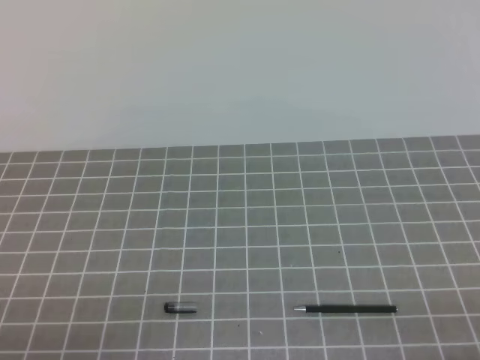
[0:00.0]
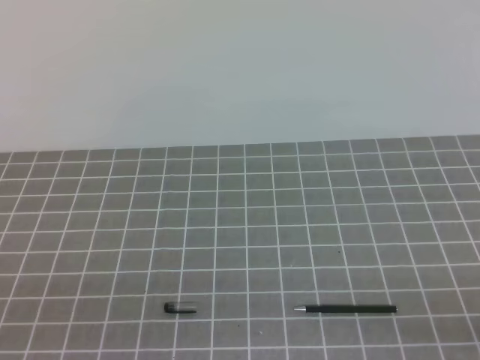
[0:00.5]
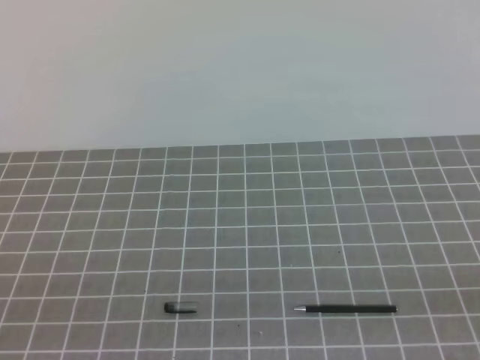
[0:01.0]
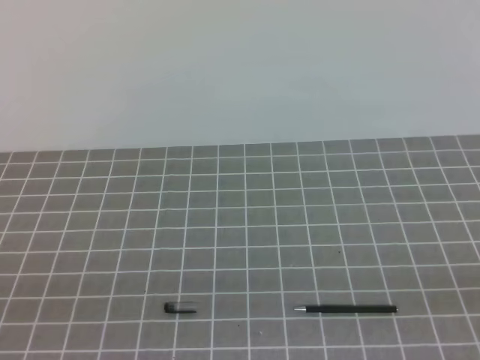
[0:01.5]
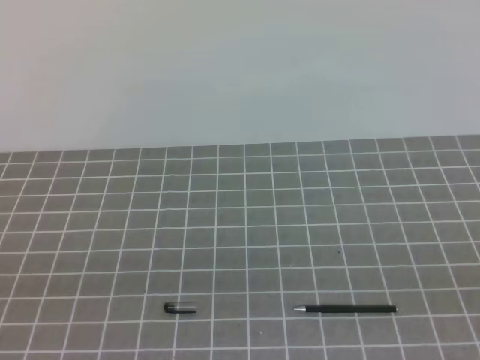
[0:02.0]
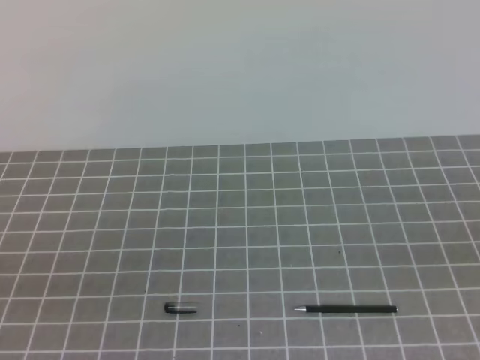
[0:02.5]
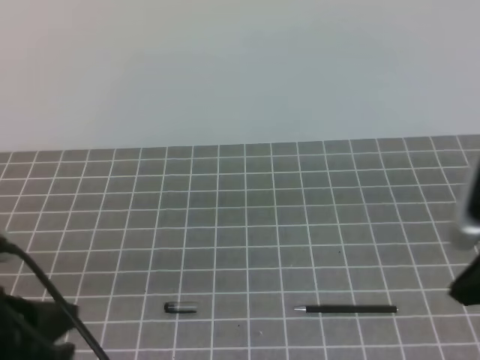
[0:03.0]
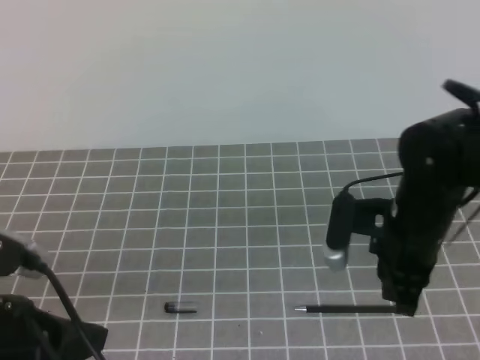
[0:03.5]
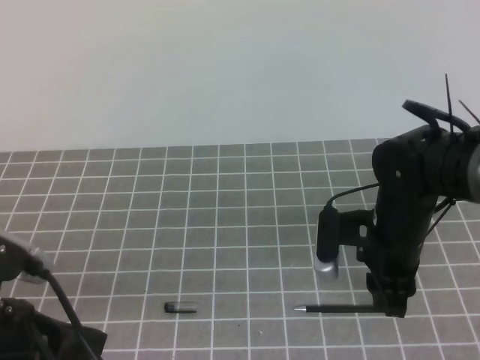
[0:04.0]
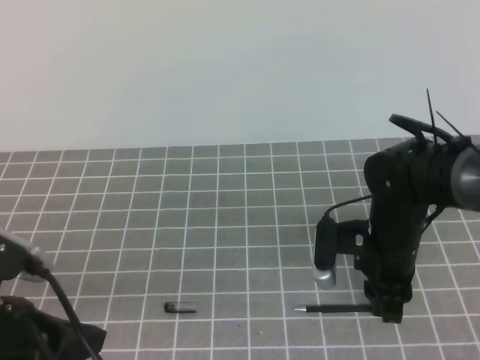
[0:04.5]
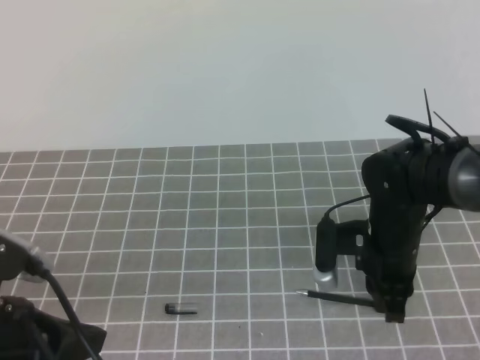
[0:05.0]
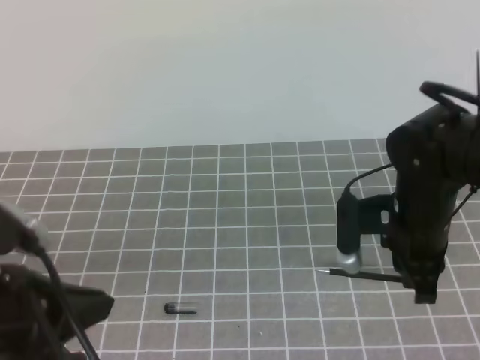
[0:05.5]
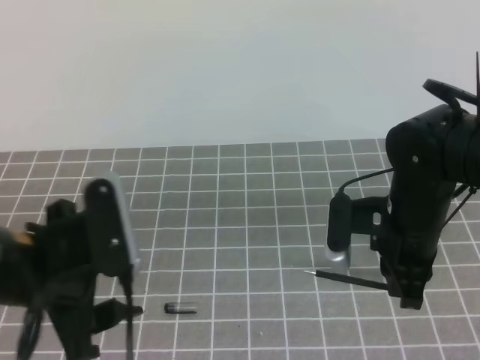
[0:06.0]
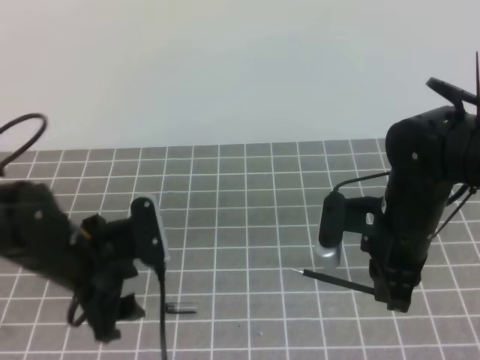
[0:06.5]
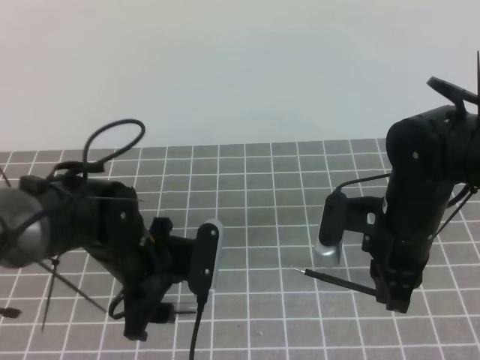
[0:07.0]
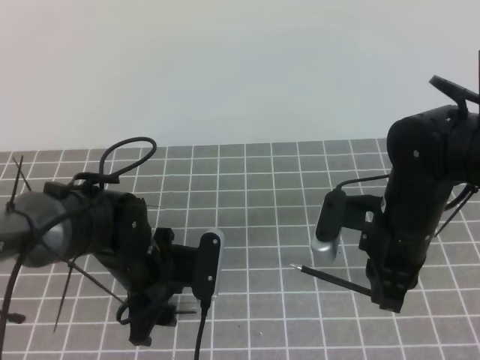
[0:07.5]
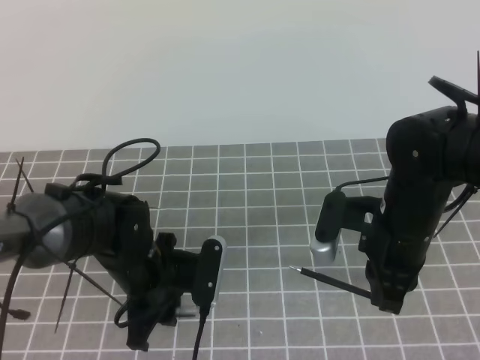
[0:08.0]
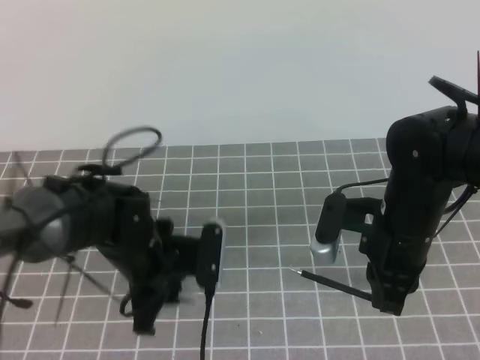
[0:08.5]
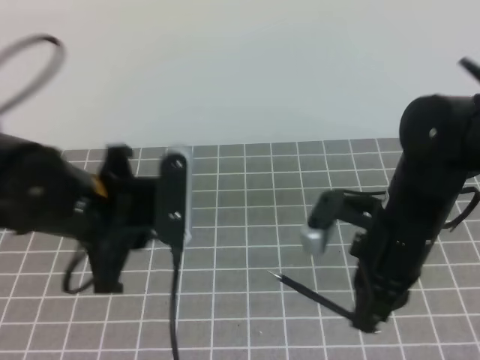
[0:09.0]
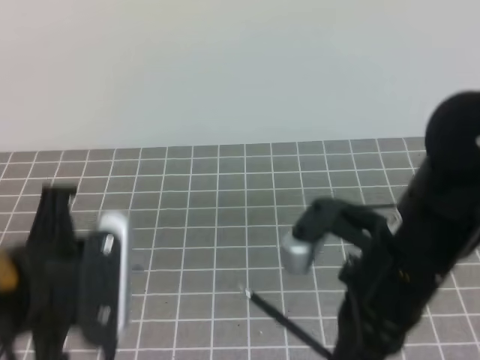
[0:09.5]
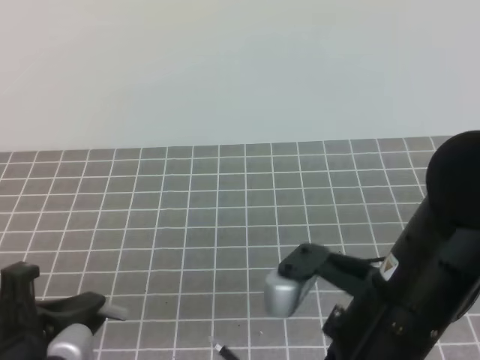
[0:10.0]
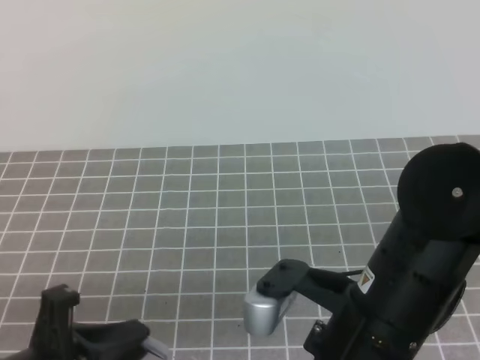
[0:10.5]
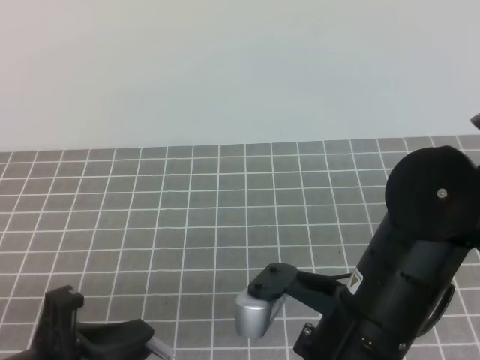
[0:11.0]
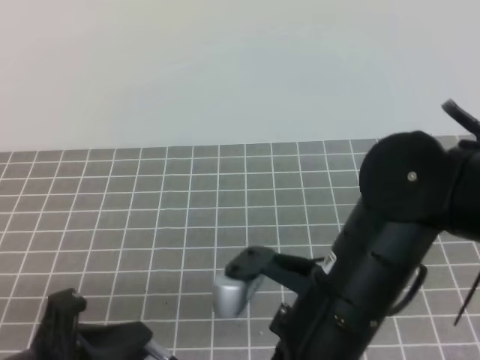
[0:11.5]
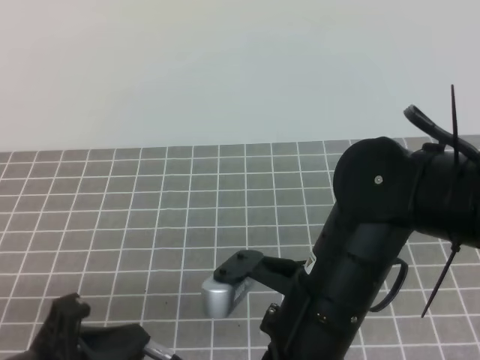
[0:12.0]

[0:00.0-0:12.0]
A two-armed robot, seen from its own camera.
Task of the whole recording: on the grey tablecloth, hold the pen cap in one hand and the pen in the other, then cover the pen cap.
0:02.0 to 0:04.0: The left gripper shifts approximately 10 cm forward and to the right; the right gripper travels forward, to the left and downward by approximately 40 cm, and opens up.
0:04.0 to 0:06.0: The left gripper travels forward by some 5 cm, and opens; the right gripper closes.
0:06.0 to 0:08.0: The left gripper moves downward, forward and to the right, approximately 20 cm, and closes up.
0:08.0 to 0:10.0: The right gripper travels backward and upward by roughly 15 cm. The left gripper is displaced backward, upward and to the left by some 20 cm, and closes its fingers.
0:10.0 to 0:12.0: The right gripper shifts by roughly 5 cm.

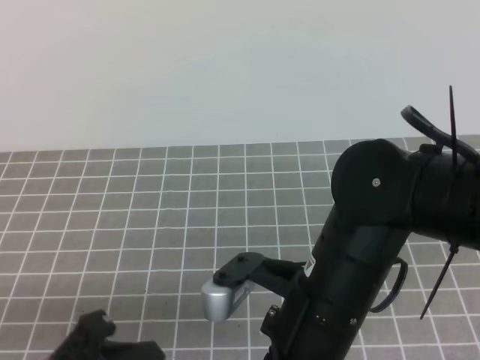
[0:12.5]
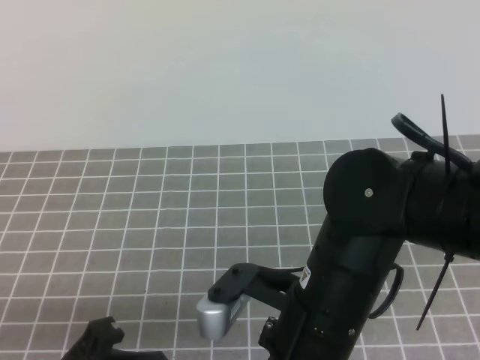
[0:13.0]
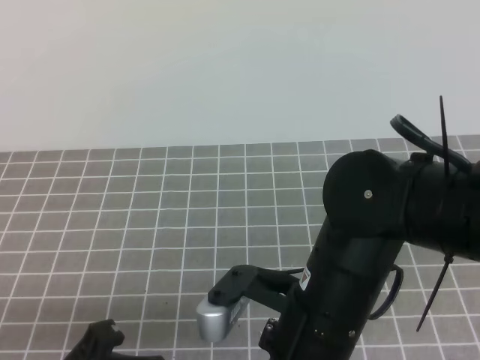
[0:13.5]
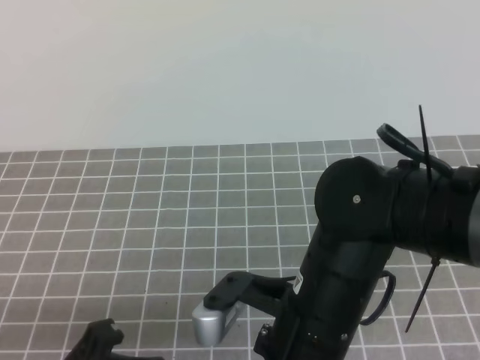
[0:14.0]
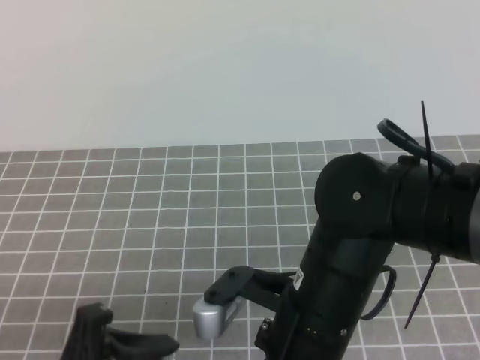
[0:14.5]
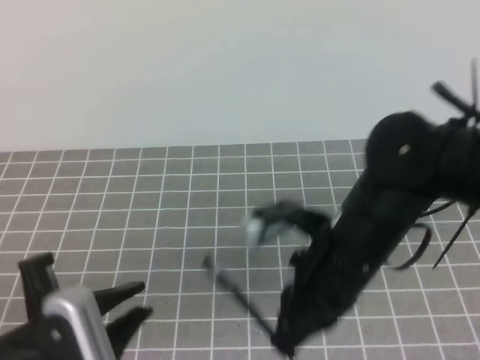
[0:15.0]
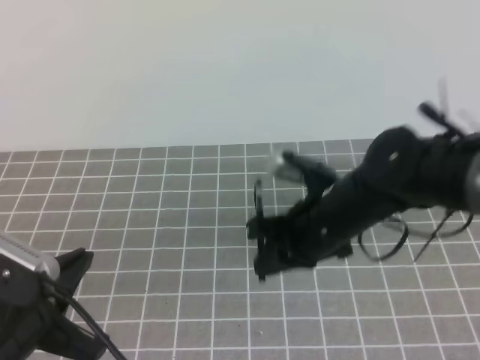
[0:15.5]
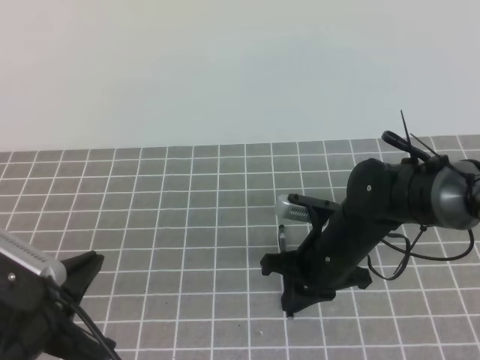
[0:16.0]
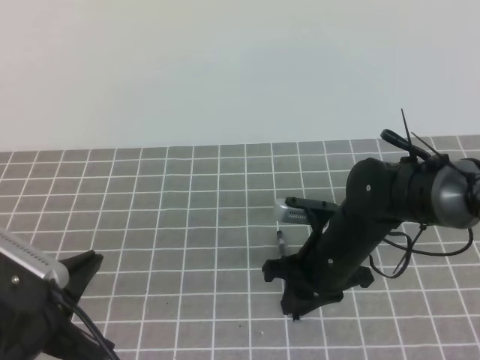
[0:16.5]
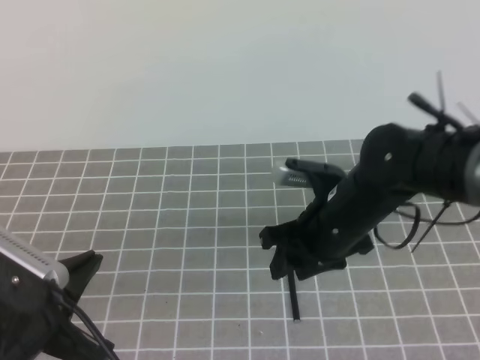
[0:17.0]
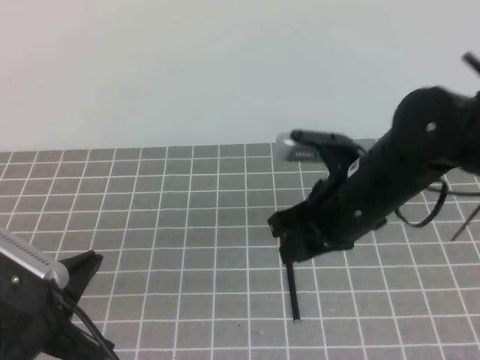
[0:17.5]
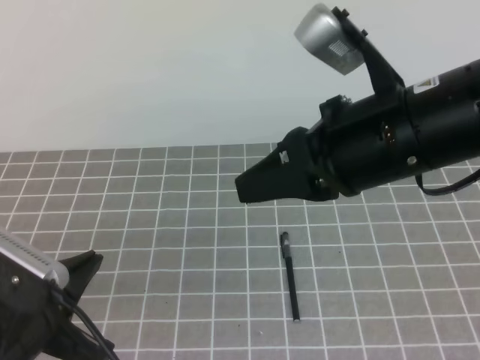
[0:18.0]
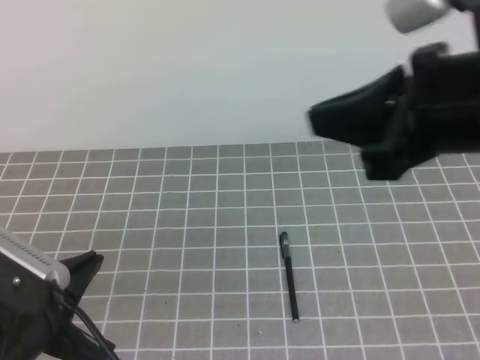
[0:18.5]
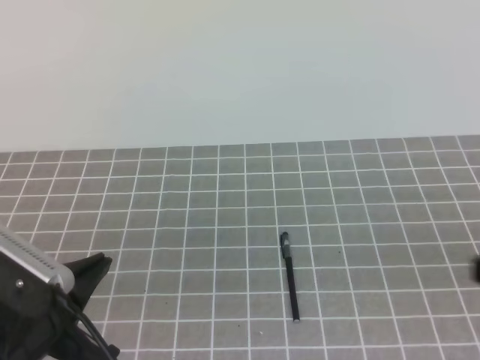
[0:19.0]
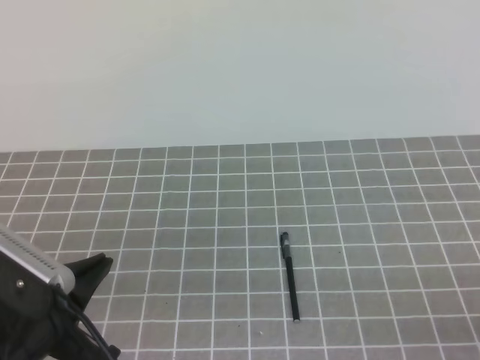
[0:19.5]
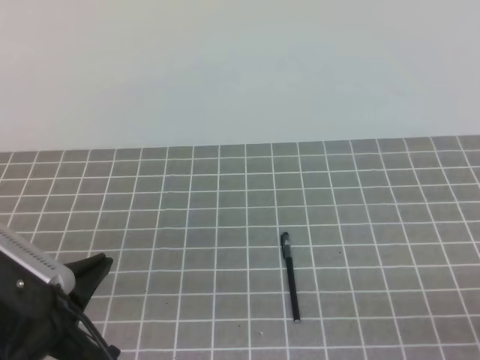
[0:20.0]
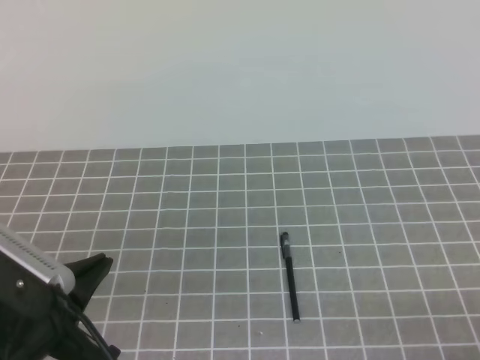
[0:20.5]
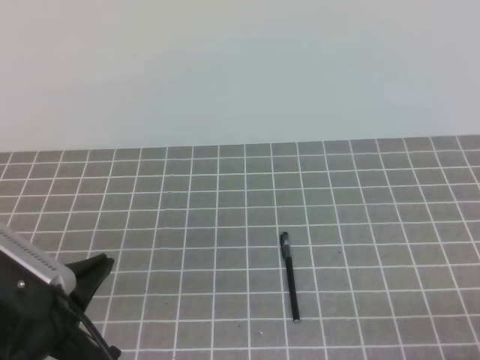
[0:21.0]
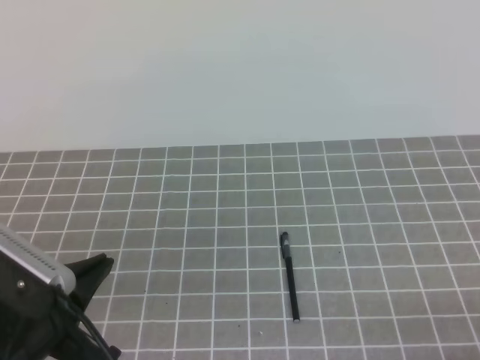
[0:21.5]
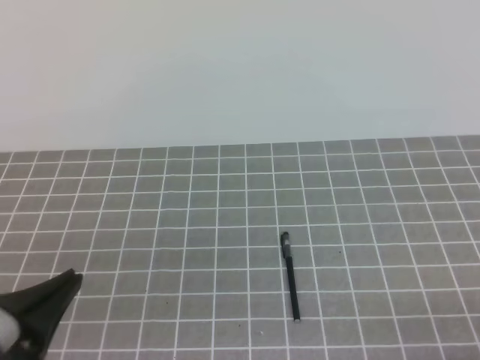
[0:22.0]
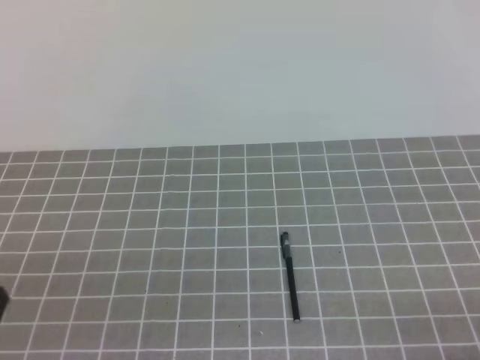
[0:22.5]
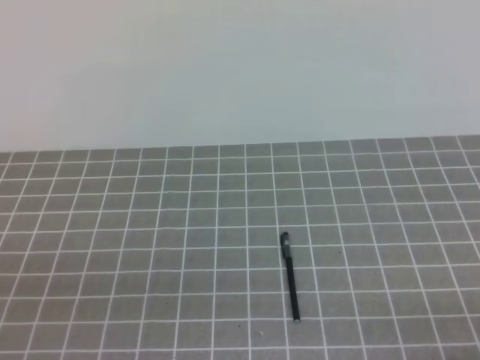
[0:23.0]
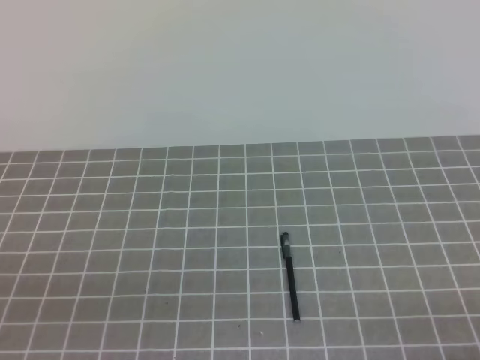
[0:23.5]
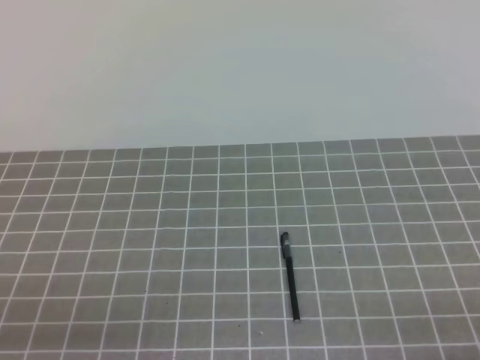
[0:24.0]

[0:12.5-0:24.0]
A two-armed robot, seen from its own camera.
Task of the whole recording: on the grey tablecloth, hold the pen cap in one hand and the pen in the other, then cover the pen cap.
Step, 0:12.5 to 0:24.0: Put the cap on the pen.
0:12.5 to 0:14.5: The left gripper opens.
0:14.5 to 0:16.5: The left gripper closes. Meanwhile the right gripper heads forward and downward, covering some 15 cm, and opens up.
0:16.5 to 0:18.5: The right gripper moves upward and backward, roughly 25 cm, and closes.
0:18.5 to 0:20.0: The right gripper travels downward, backward and to the right by some 30 cm.
0:20.0 to 0:22.0: There are only small adjustments of the grippers.
0:22.0 to 0:24.0: The left gripper ends up about 10 cm from where it was.
